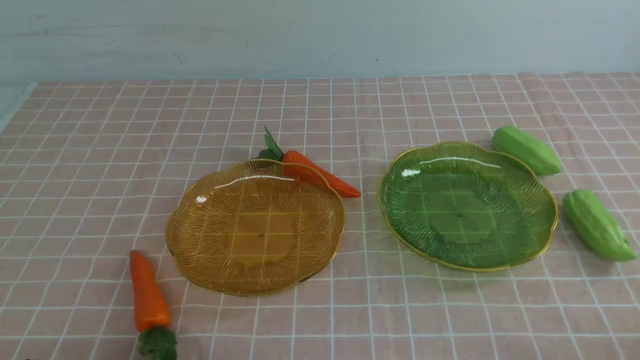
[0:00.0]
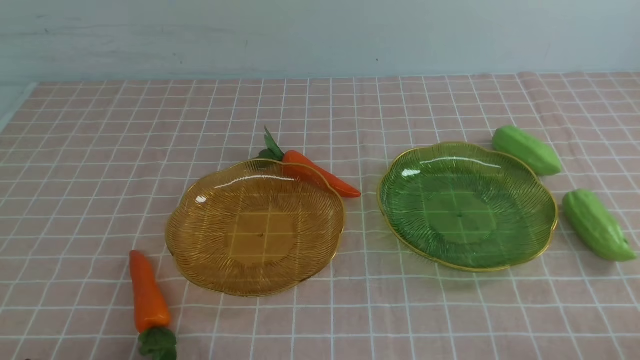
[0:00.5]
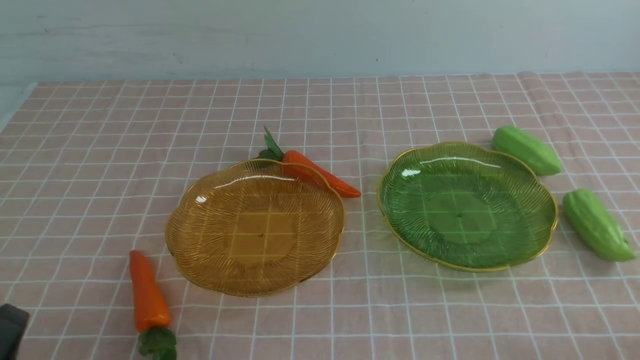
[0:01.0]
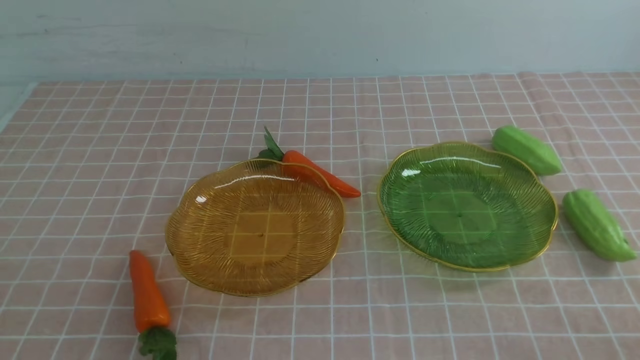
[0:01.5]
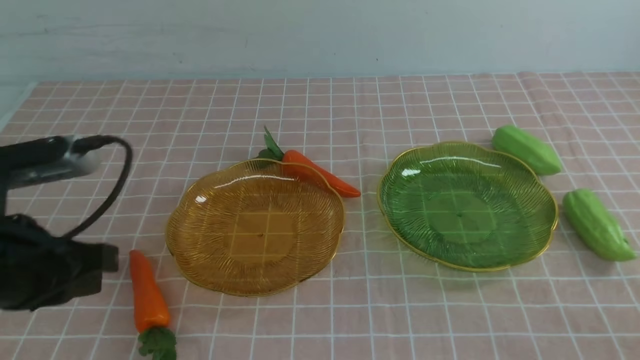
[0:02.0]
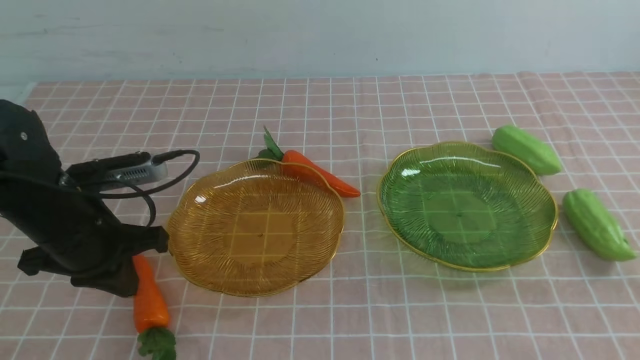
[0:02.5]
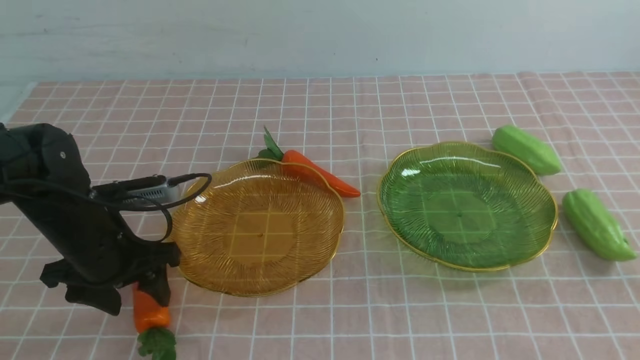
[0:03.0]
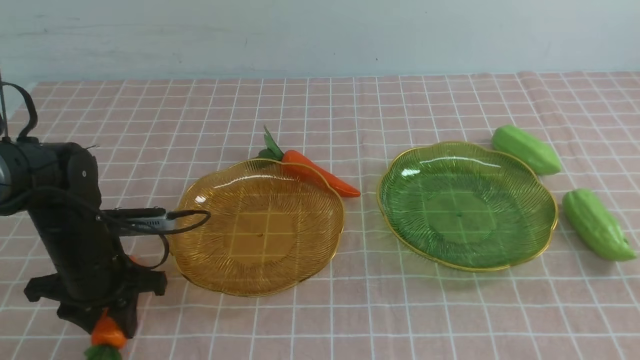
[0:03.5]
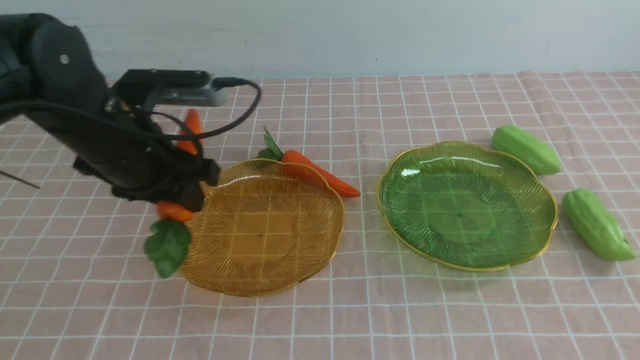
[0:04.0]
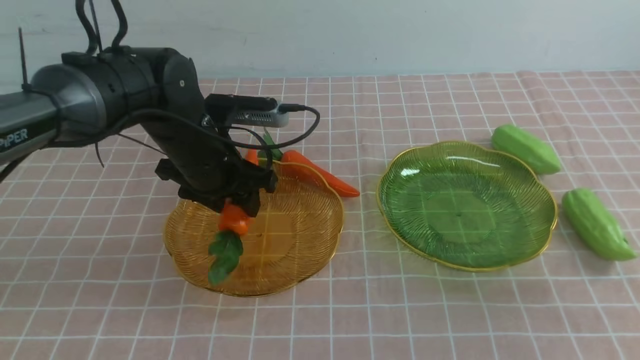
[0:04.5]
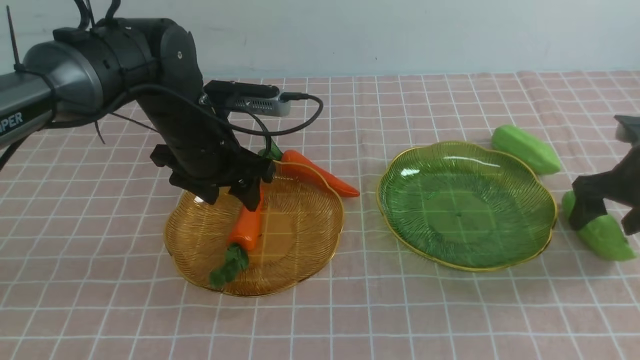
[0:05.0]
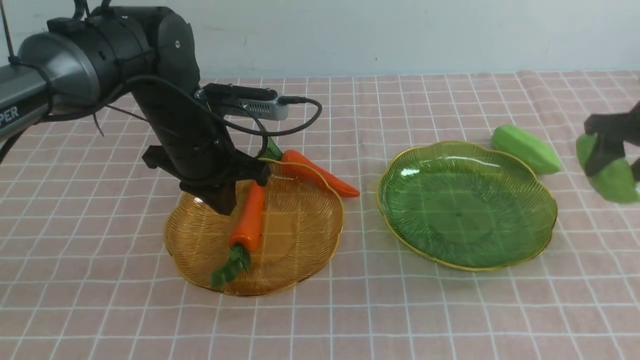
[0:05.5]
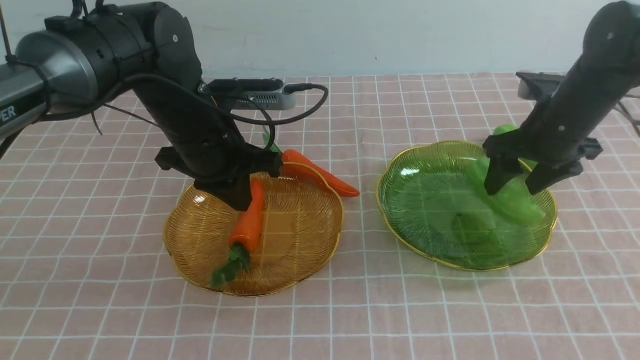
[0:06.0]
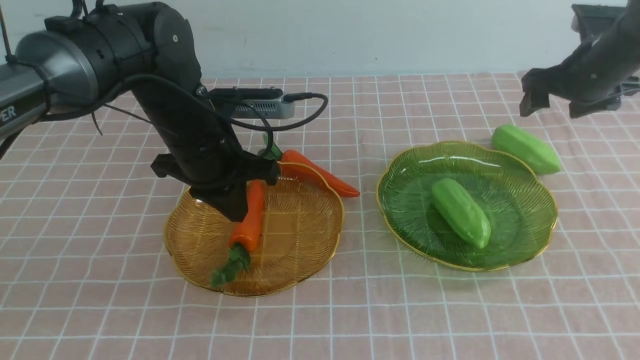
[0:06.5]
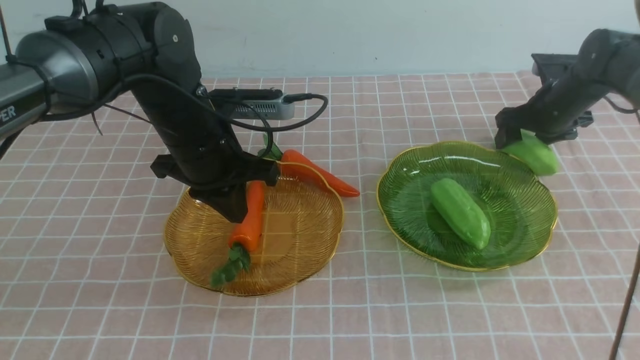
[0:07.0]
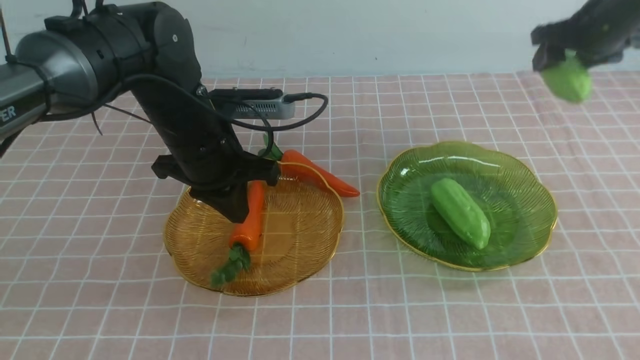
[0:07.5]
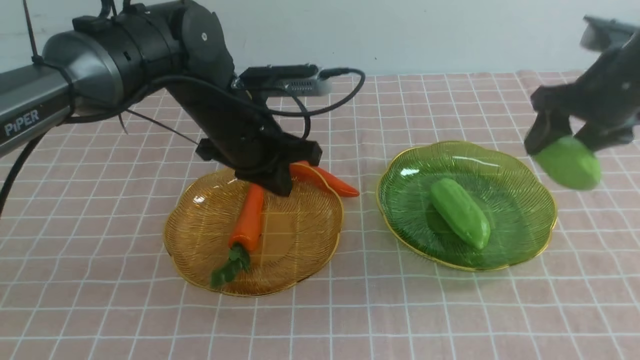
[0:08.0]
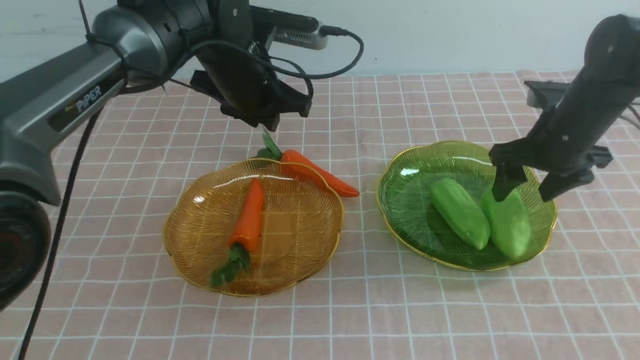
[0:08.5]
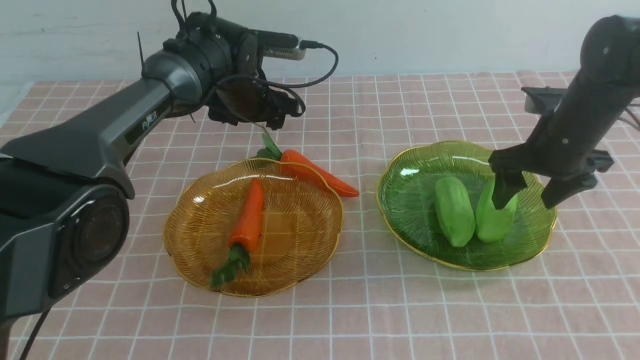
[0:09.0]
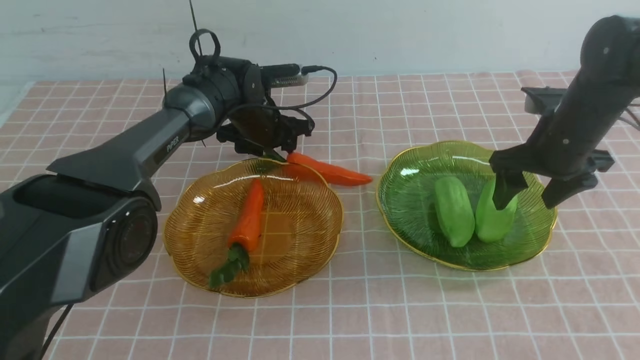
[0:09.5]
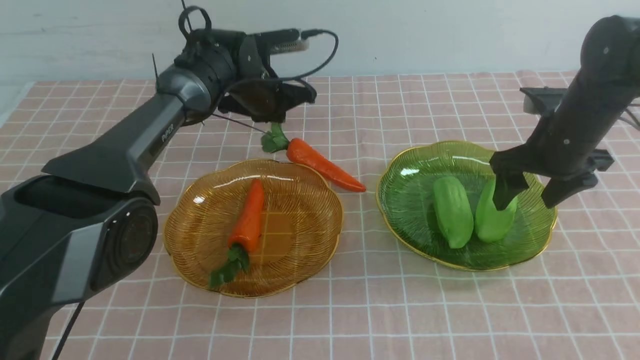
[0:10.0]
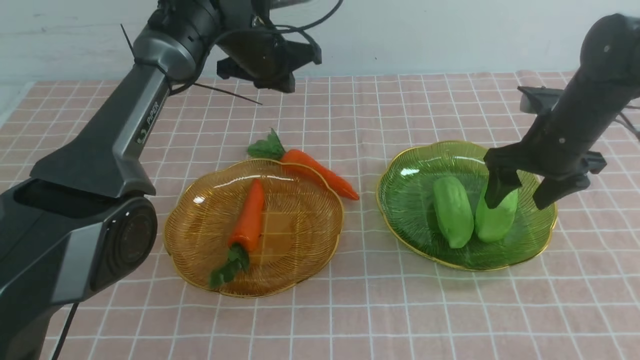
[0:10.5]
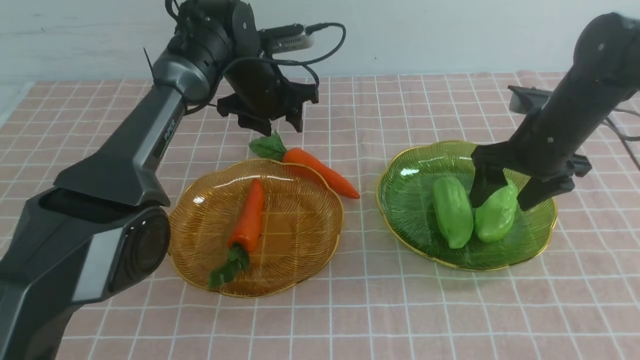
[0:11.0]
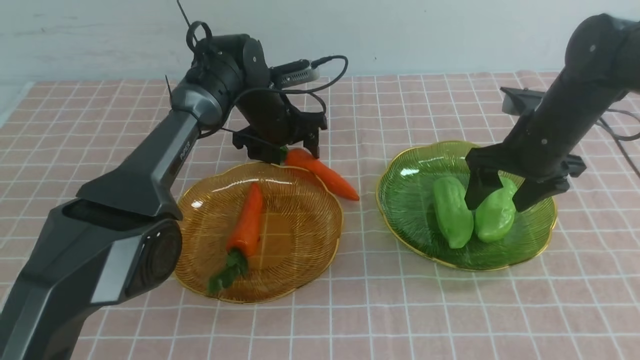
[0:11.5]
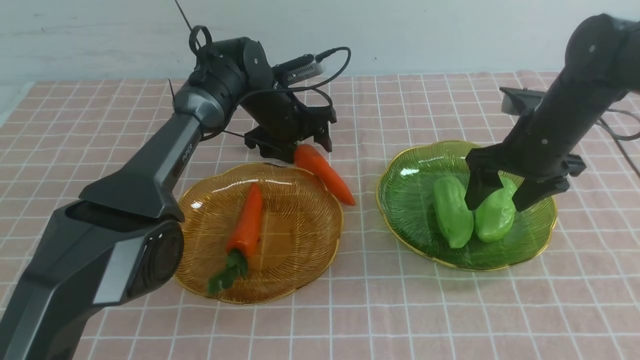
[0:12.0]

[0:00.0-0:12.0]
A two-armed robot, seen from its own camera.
Step, 0:00.0 to 0:04.5: use the left arm to grab a carrot and put it into the left plate.
Step, 0:05.0 to 0:06.0: use the right arm to grab a chayote and put it into the right plate.
Step, 0:06.5 to 0:08.5: use the right arm to grab a chayote and put it into the right plate.
0:00.0 to 0:02.0: The left gripper heads upward and forward, covering roughly 20 cm.
0:02.0 to 0:04.0: The left gripper heads forward, covering roughly 15 cm, and opens up, while the right gripper moves forward and upward, approximately 20 cm.
0:04.0 to 0:06.0: The right gripper shifts roughly 25 cm forward and downward, and opens, while the left gripper travels to the right and forward by roughly 10 cm, and closes its fingers.
0:06.0 to 0:08.0: The right gripper heads upward, covering roughly 5 cm.
0:08.0 to 0:10.0: The left gripper shifts approximately 15 cm forward, and opens and closes again. The right gripper goes about 10 cm downward.
0:10.0 to 0:12.0: The left gripper moves downward, about 5 cm, and opens.

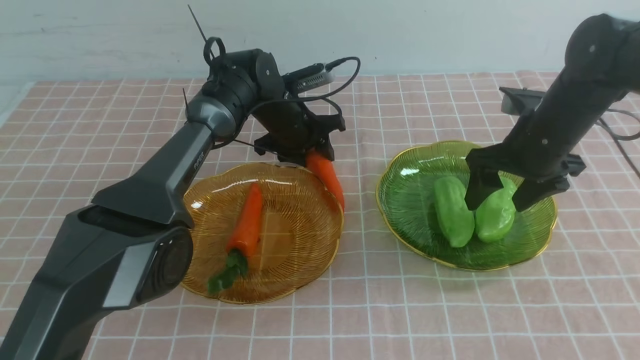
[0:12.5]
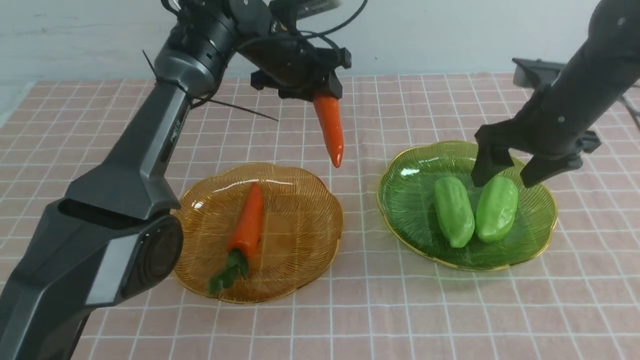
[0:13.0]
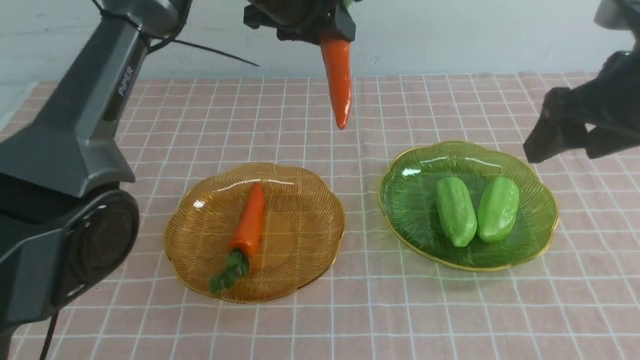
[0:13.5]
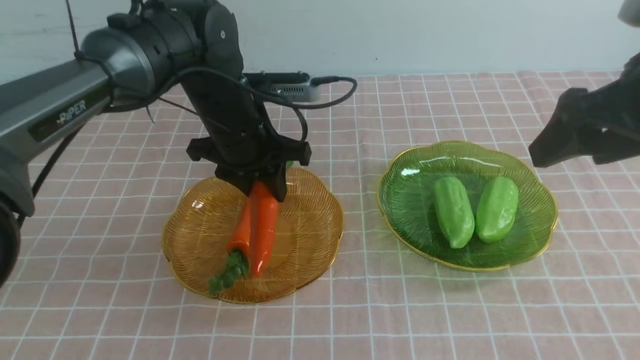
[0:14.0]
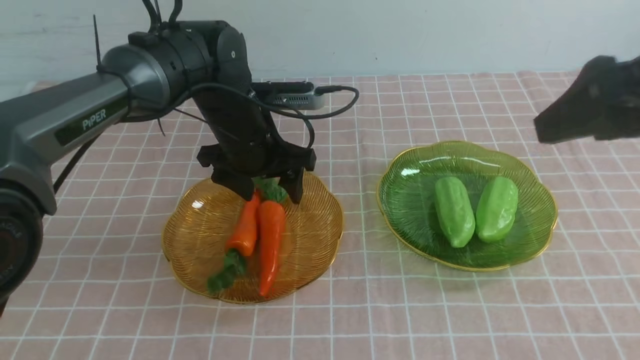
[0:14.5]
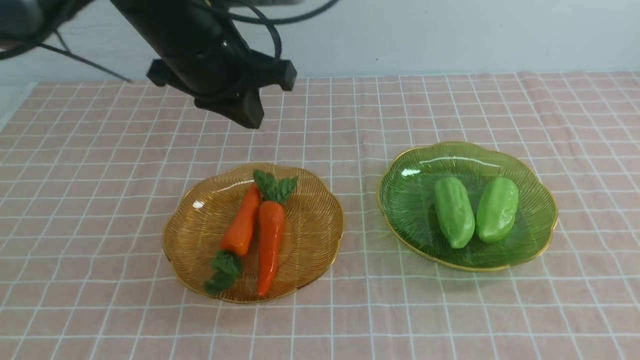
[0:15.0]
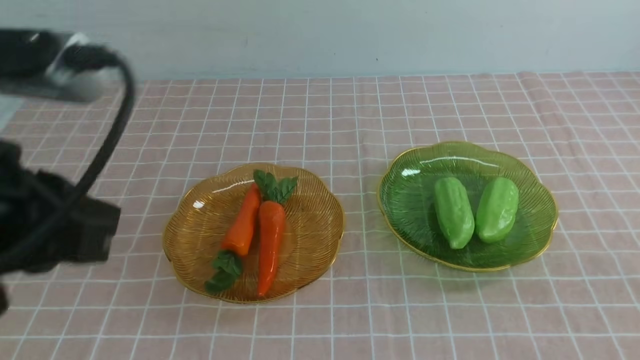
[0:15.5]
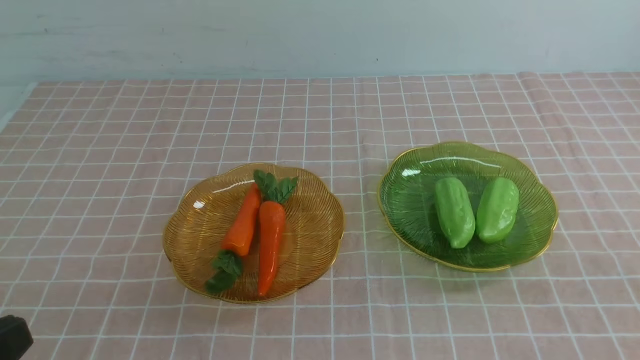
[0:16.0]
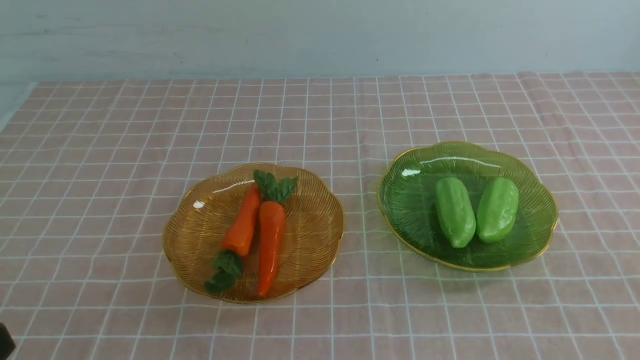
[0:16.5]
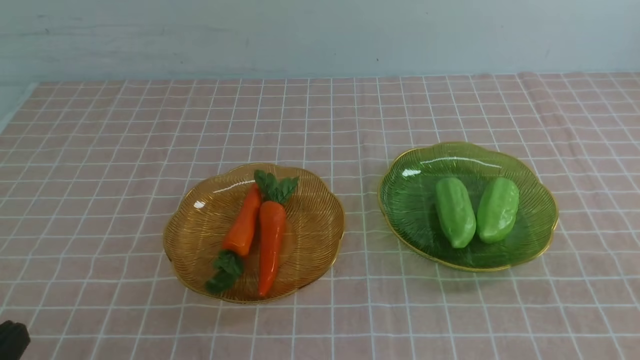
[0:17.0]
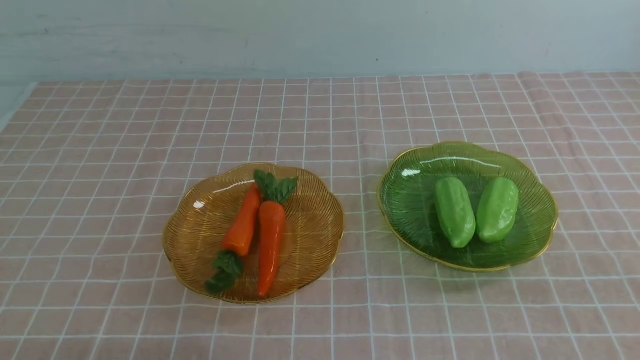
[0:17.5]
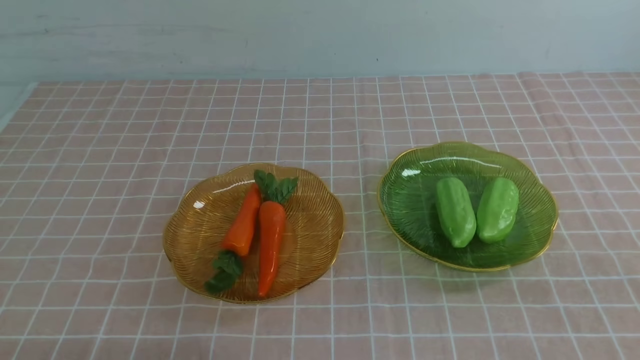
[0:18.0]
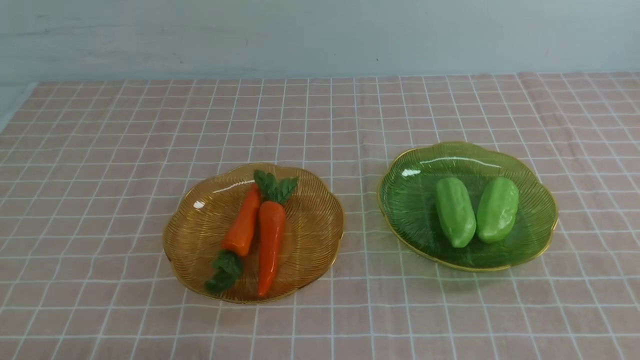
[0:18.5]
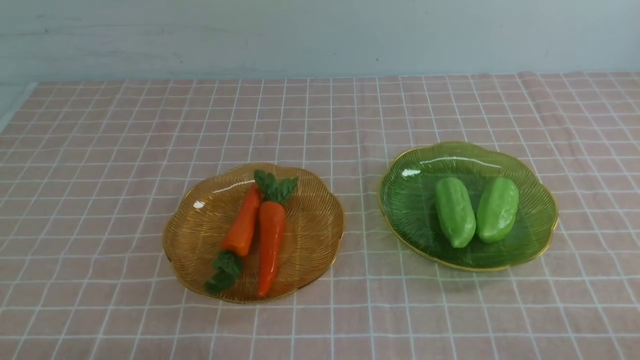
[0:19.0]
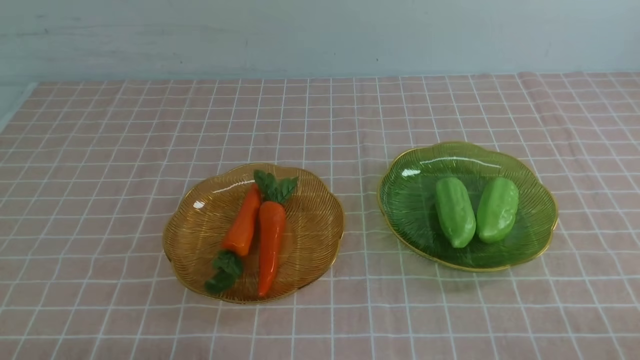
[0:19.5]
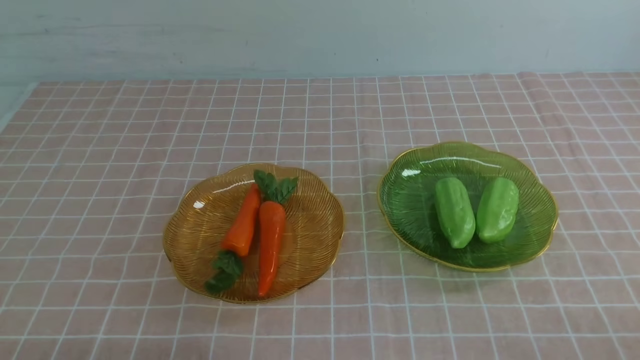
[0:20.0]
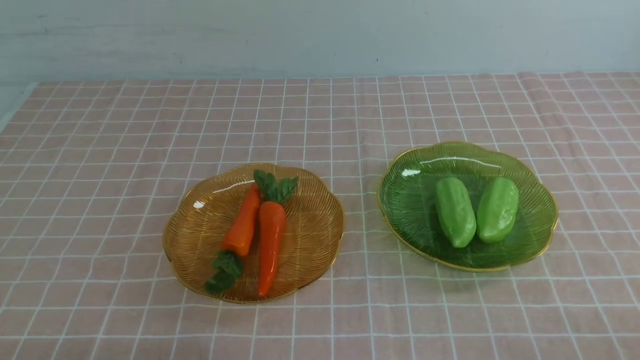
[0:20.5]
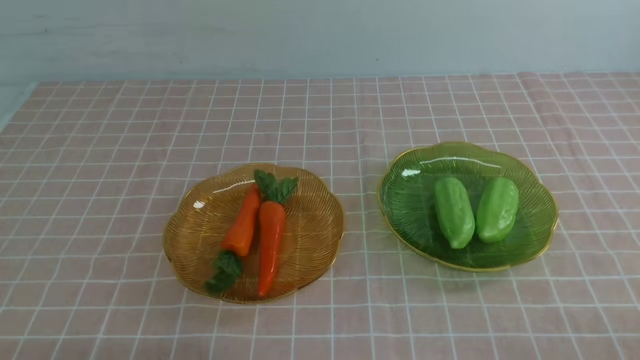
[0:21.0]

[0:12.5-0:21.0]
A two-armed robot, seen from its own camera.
Step, 0:12.5 to 0:14.5: use the left arm to grab a carrot and put it into the left plate.
0:12.5 to 0:14.5: The left gripper travels backward and upward by about 15 cm. Meanwhile the right gripper shifts about 25 cm upward and backward.
0:14.5 to 0:16.5: The left gripper goes about 40 cm backward, and closes its fingers; the right gripper is displaced backward and downward by about 20 cm, and closes.
0:19.0 to 0:21.0: Both grippers stay about where they are.
